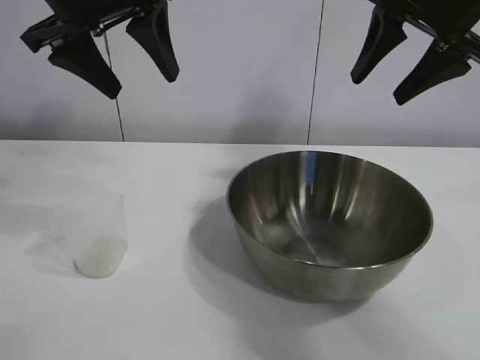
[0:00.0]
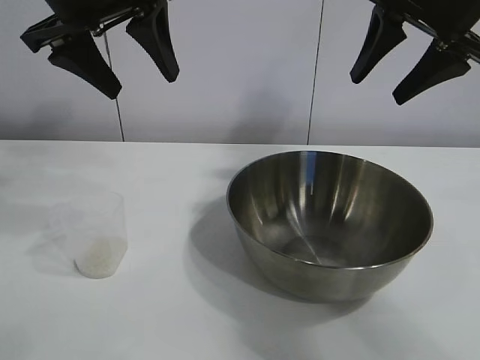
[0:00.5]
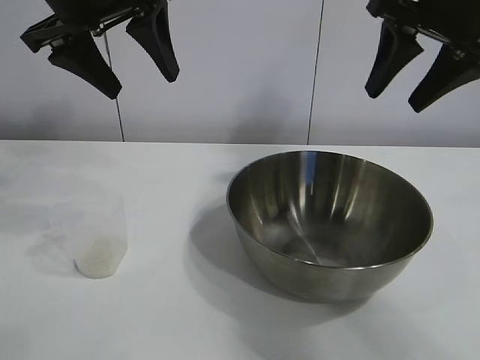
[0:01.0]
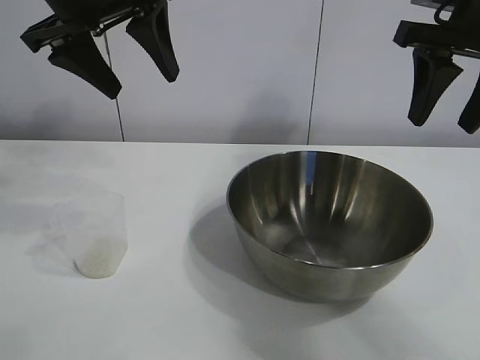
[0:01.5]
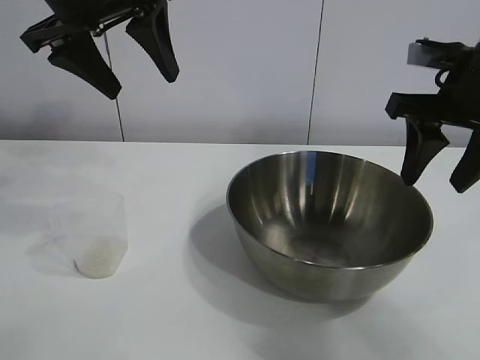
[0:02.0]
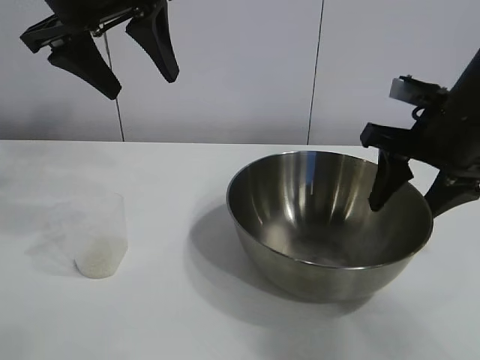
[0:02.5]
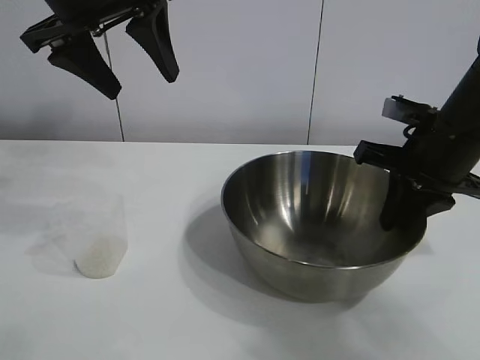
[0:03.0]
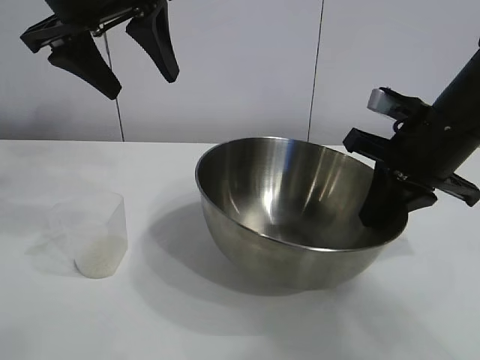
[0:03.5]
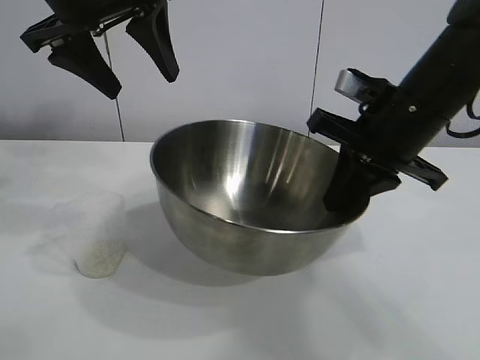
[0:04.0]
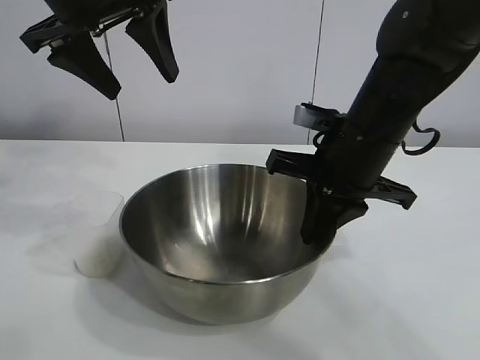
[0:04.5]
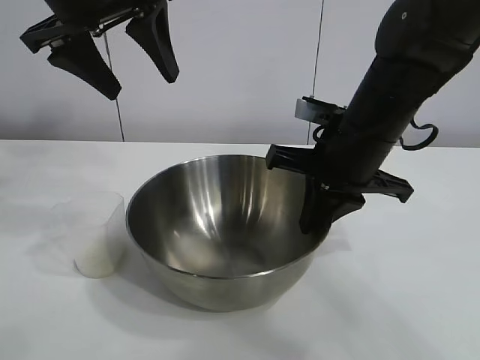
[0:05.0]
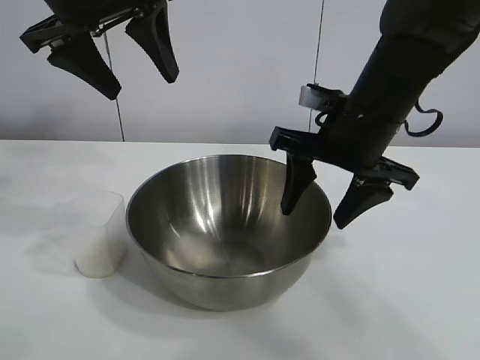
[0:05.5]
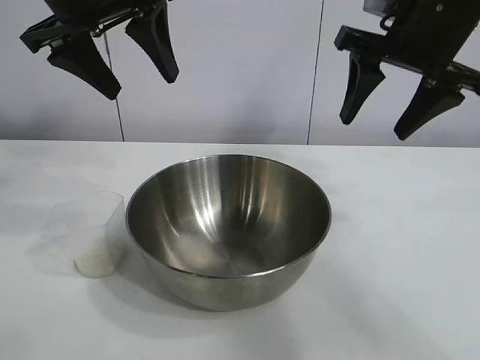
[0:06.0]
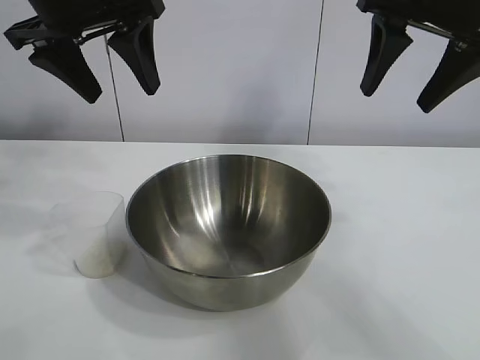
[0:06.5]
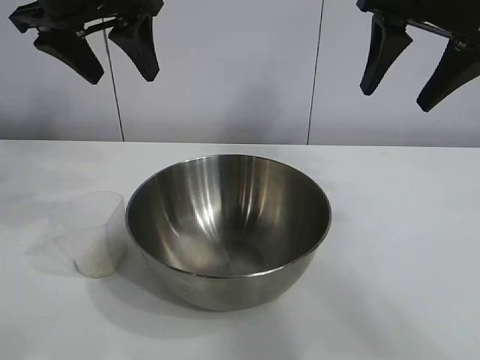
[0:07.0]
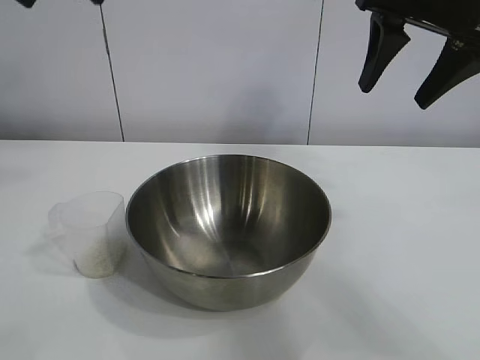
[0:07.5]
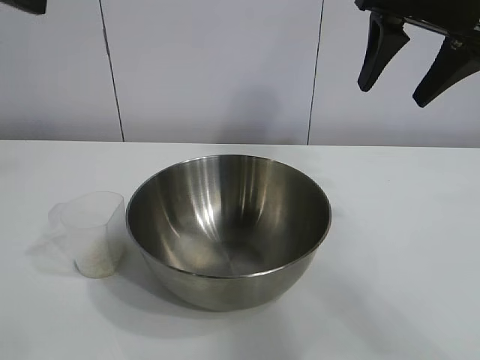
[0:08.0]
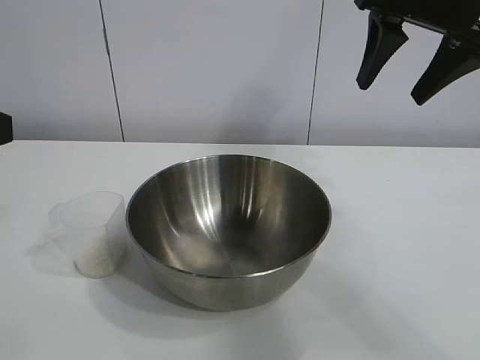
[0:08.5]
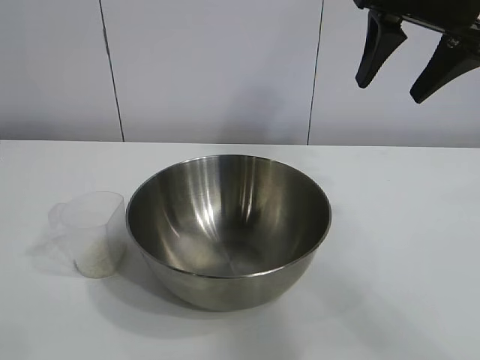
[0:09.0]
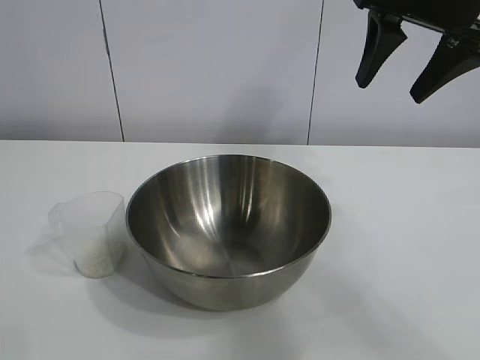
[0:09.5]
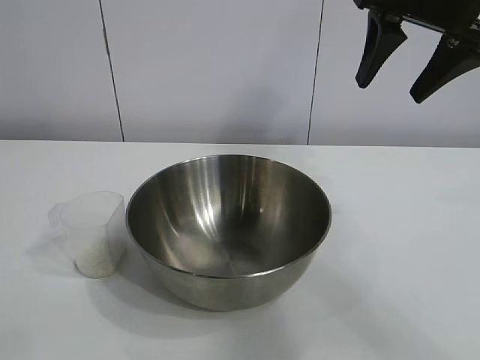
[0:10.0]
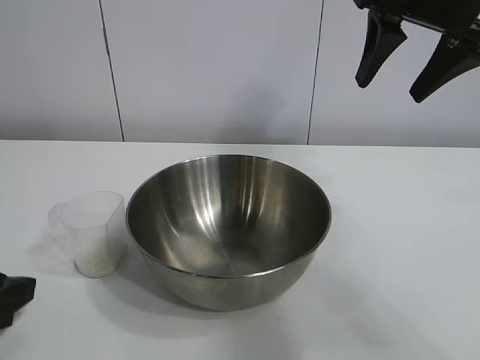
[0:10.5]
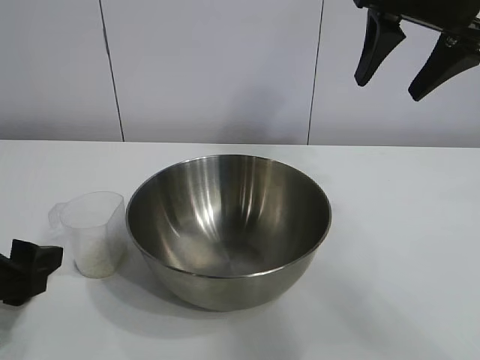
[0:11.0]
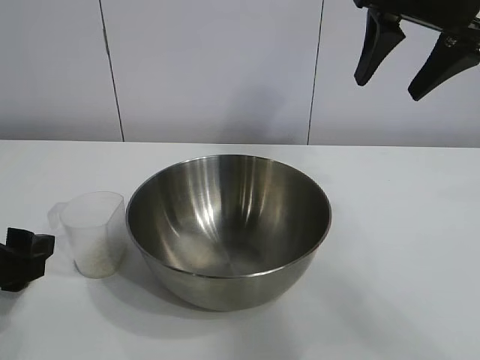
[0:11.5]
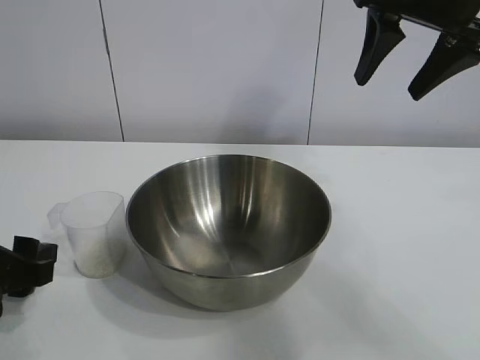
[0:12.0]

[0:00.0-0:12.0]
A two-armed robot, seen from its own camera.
Task of the whole recording: the right gripper grasp the rice container and place it in the center of the table, the left gripper grasp the rice scoop and pour the rice into the rice container.
Step, 0:01.0 to 0:05.5: Move the bowl in the center of view with right gripper.

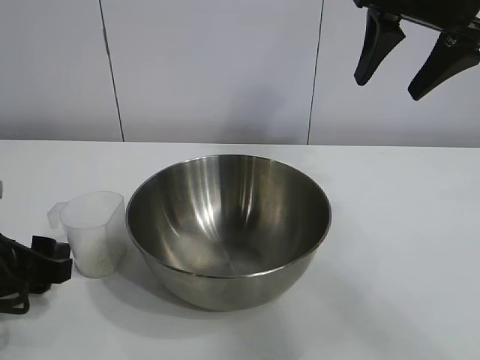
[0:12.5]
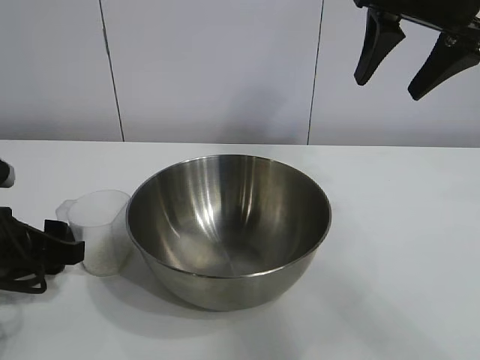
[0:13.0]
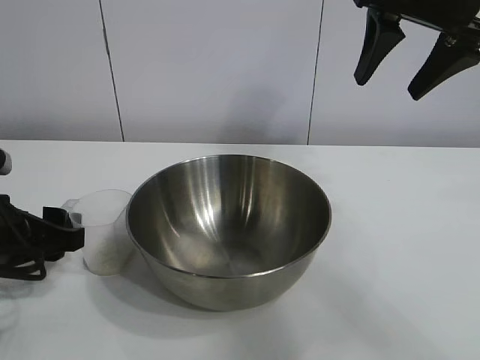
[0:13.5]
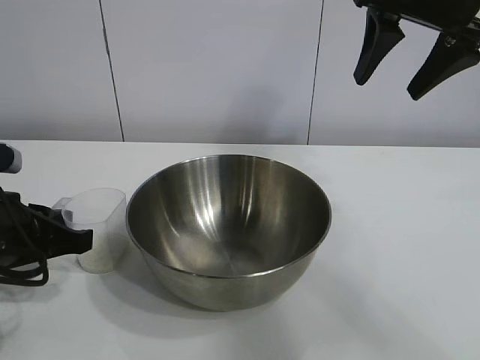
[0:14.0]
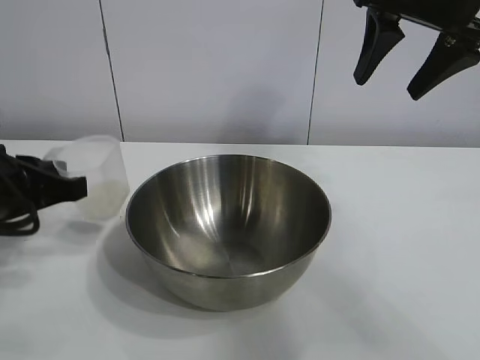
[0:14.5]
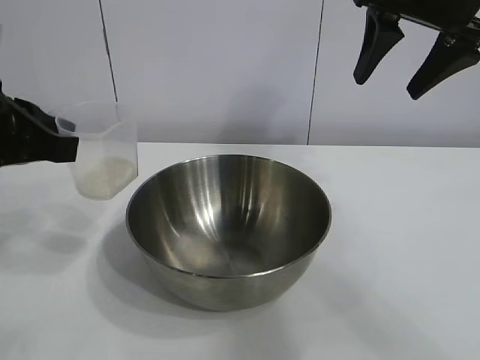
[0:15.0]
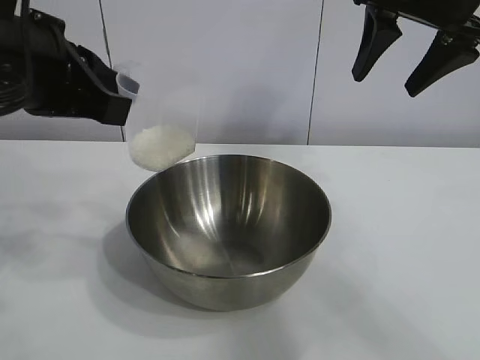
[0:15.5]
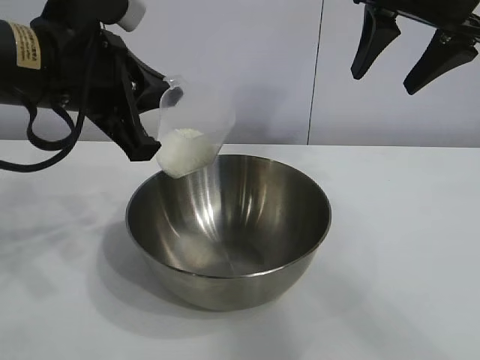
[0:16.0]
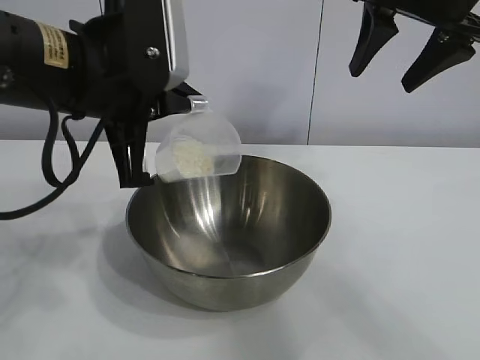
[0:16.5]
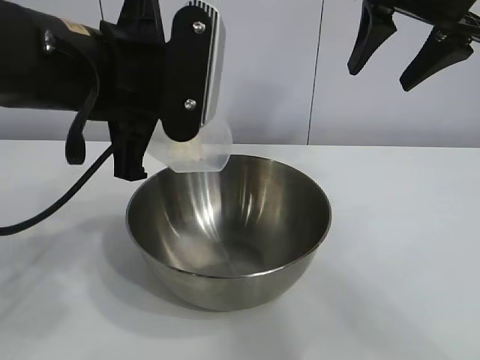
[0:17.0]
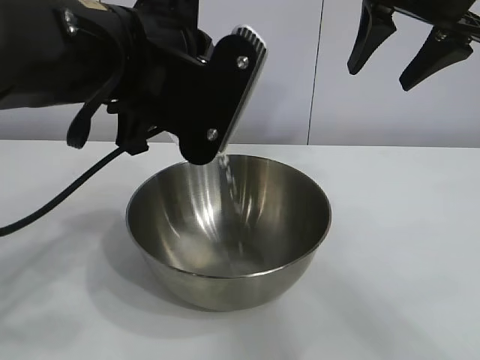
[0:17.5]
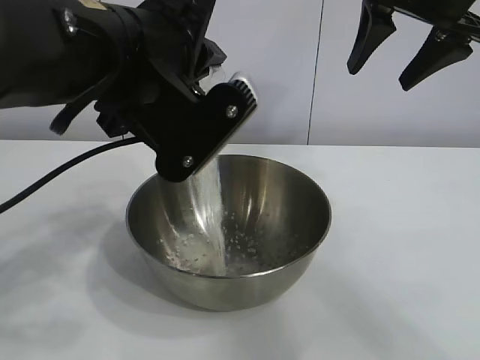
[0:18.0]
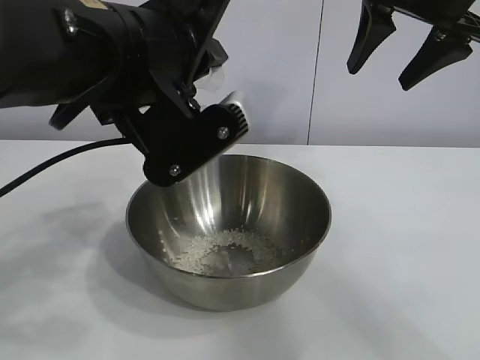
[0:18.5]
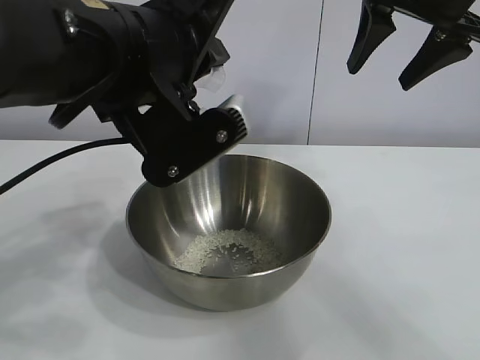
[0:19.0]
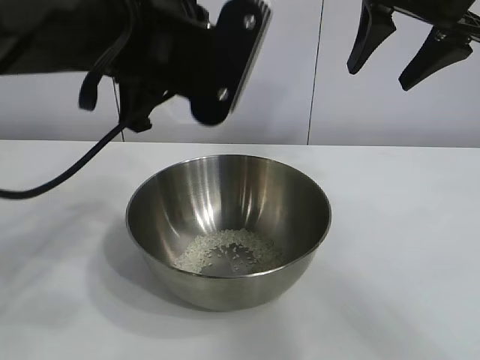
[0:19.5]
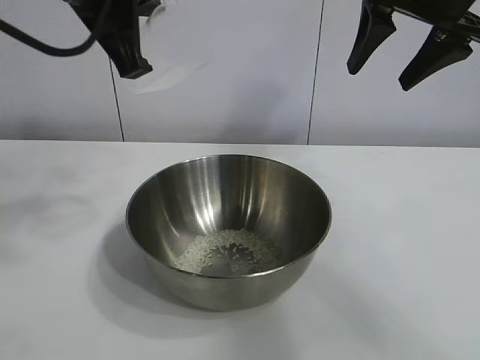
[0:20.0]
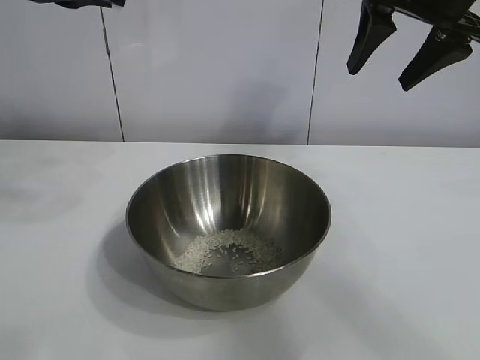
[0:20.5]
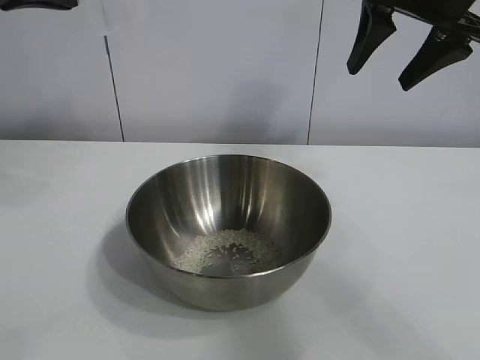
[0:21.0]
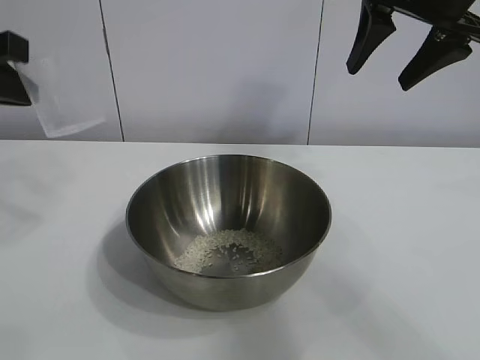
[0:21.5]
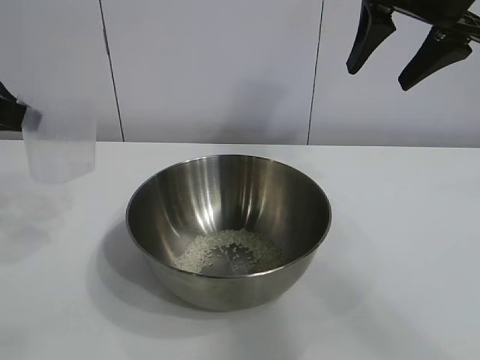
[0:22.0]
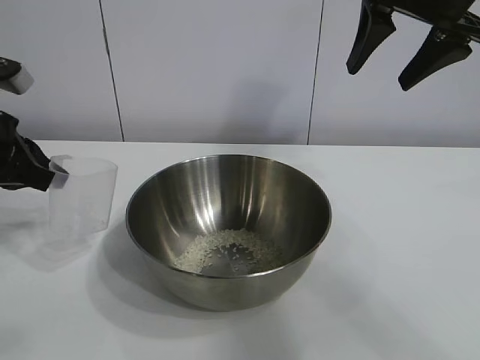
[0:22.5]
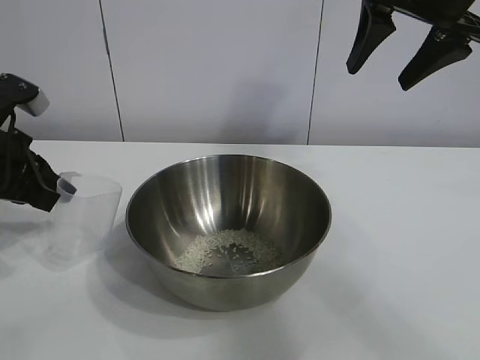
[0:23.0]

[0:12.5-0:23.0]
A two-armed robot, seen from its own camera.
Task of the whole recording: the right gripper grasp the rice container and place it in the center of the table, the left gripper grasp the rice scoop and pour the rice into the rice container.
Step, 0:14.5 to 0:19.0: Pour the rice from the cup into the bowl with the left gripper.
